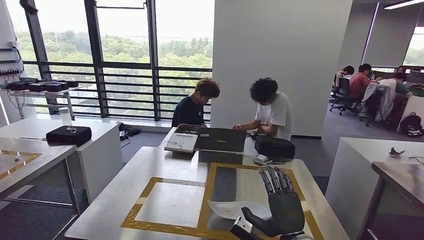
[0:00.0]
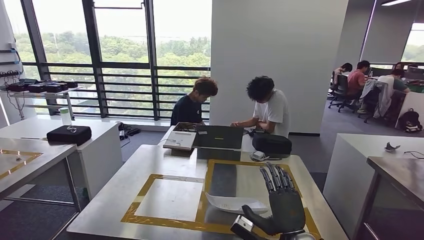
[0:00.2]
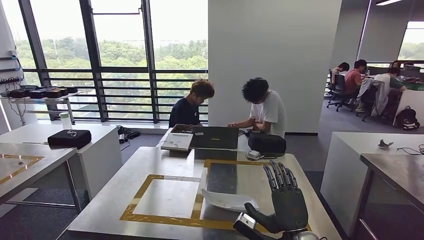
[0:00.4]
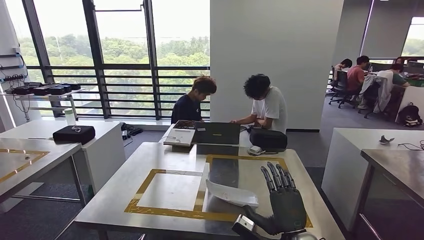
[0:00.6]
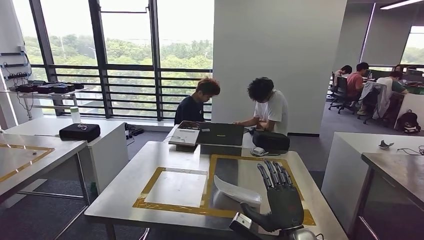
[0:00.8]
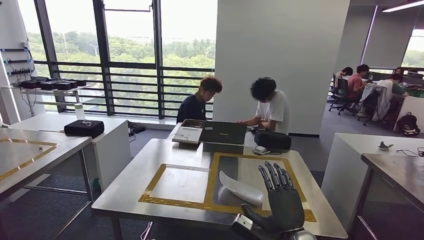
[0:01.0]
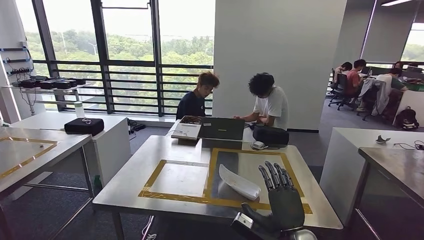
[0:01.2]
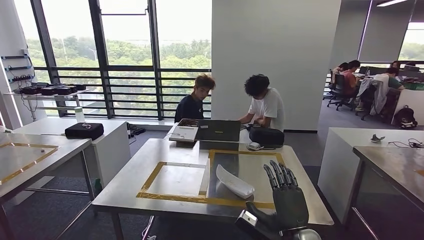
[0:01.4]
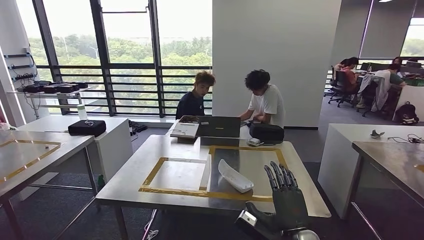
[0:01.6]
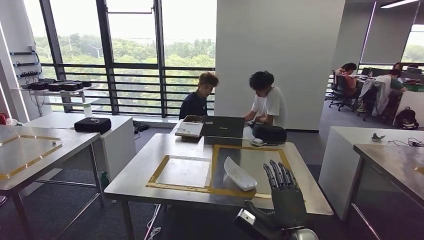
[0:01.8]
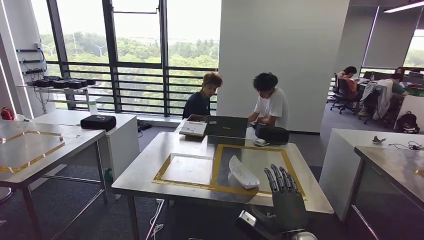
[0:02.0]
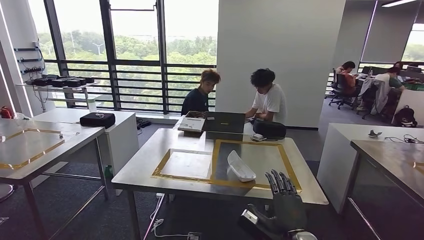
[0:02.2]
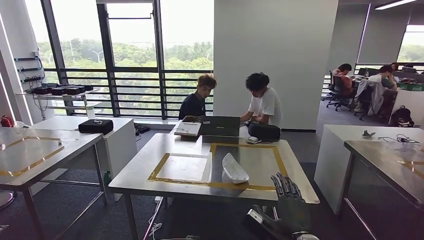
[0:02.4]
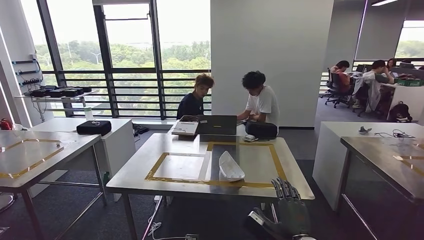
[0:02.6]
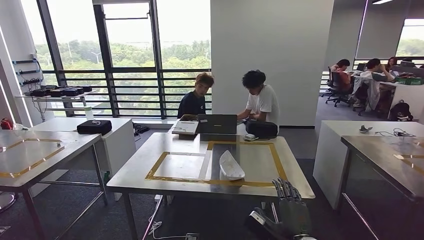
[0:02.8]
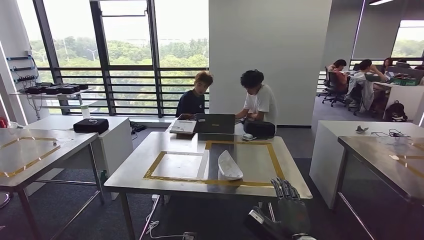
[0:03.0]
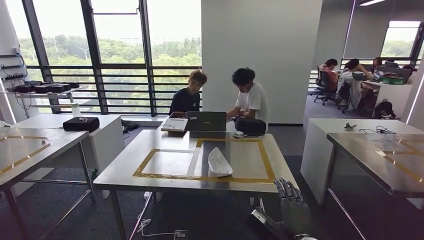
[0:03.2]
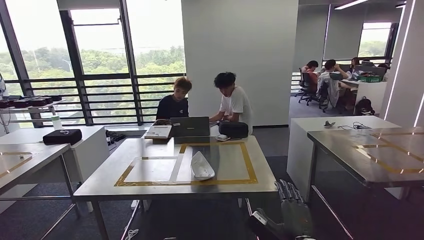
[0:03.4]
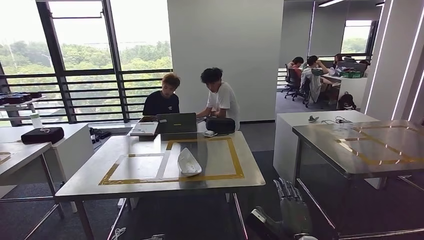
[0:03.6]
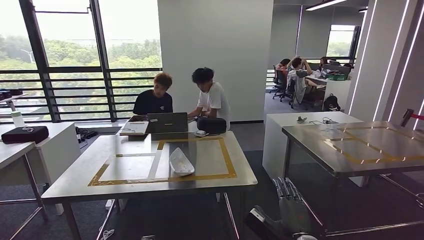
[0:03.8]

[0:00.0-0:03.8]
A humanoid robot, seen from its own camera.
Step, 0:00.0 to 0:03.8: Move to the initial position at the workbench.
